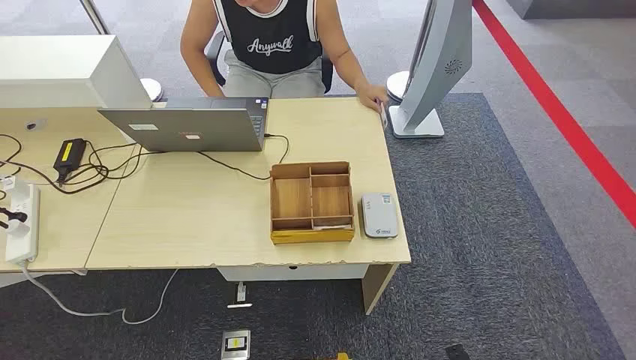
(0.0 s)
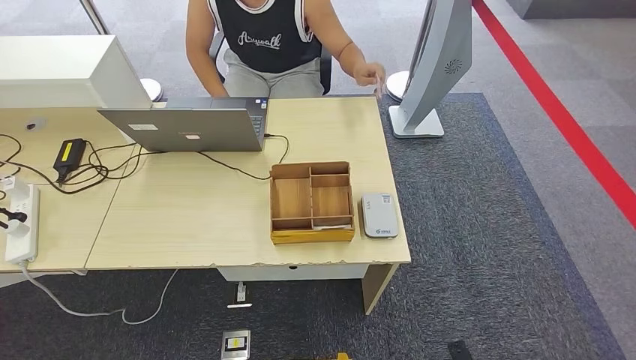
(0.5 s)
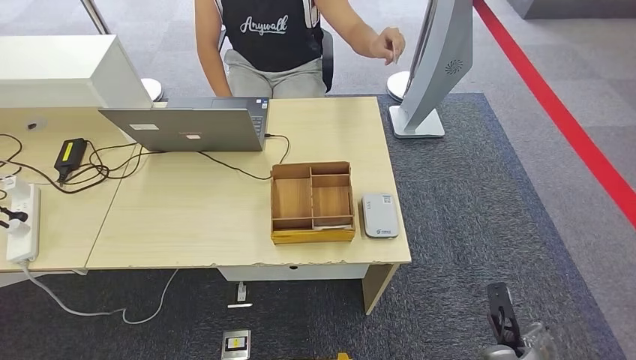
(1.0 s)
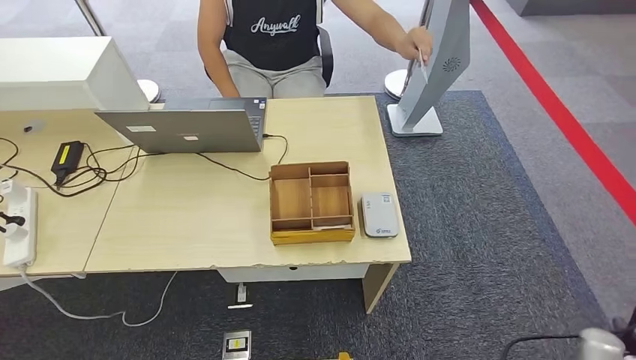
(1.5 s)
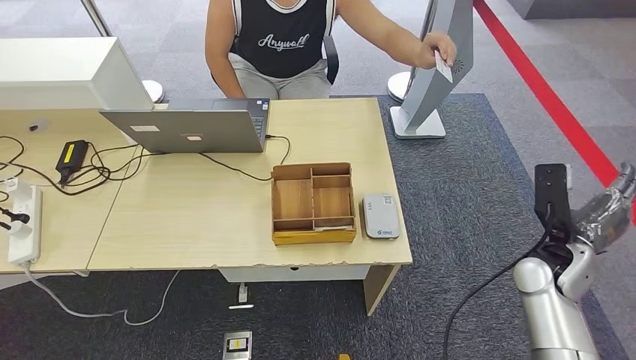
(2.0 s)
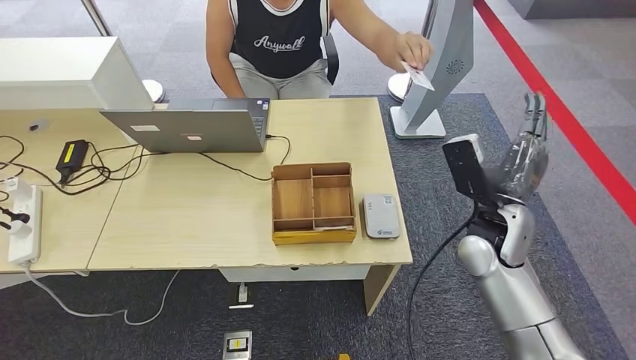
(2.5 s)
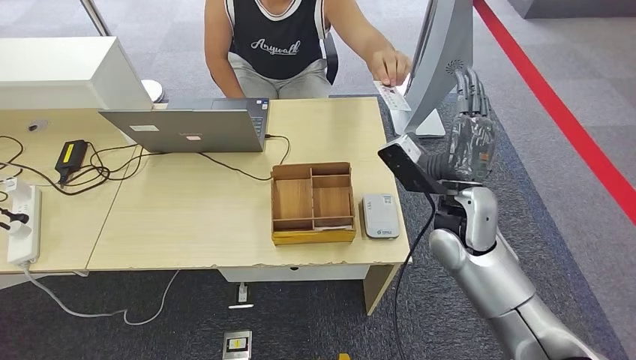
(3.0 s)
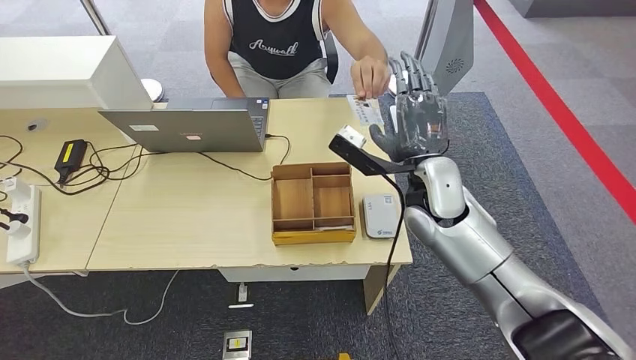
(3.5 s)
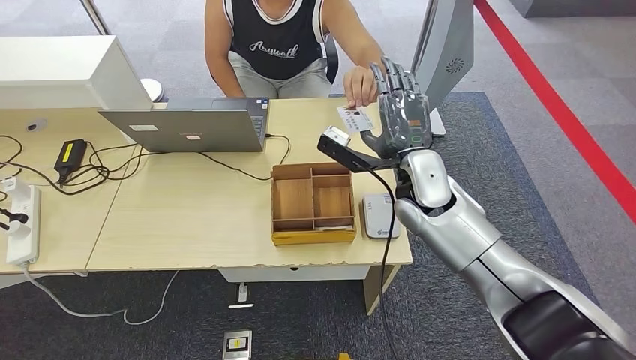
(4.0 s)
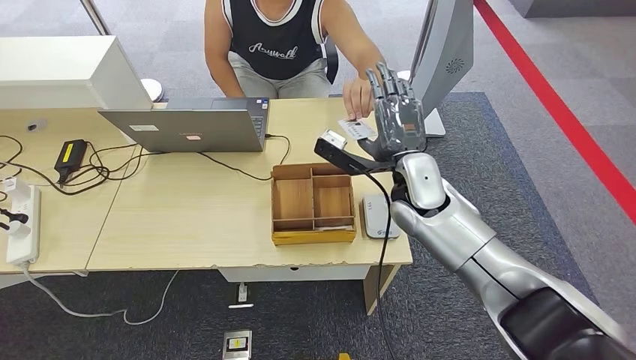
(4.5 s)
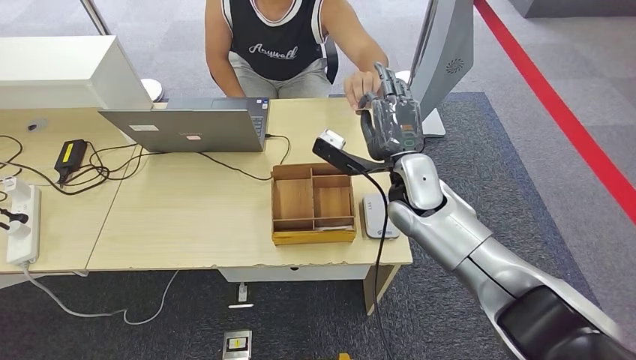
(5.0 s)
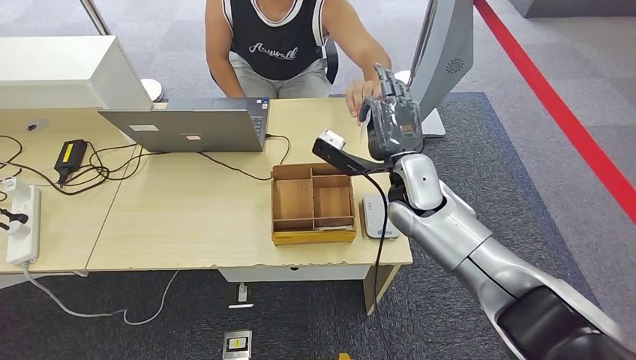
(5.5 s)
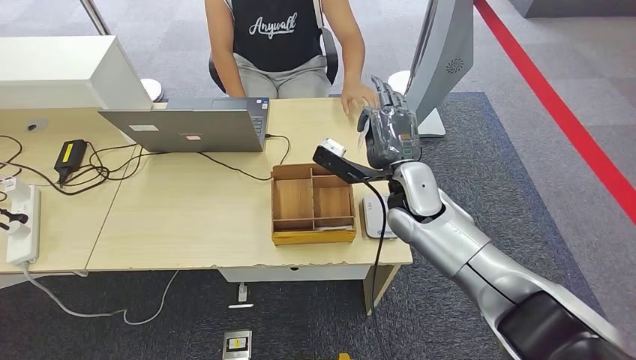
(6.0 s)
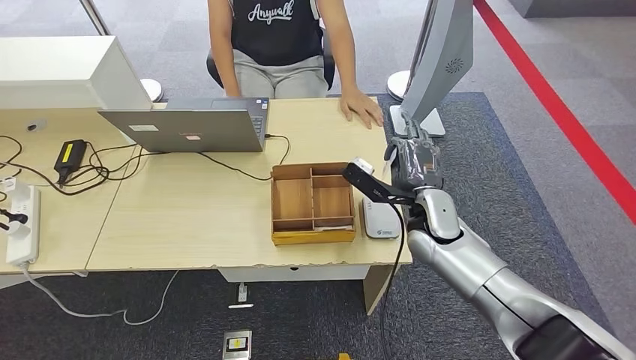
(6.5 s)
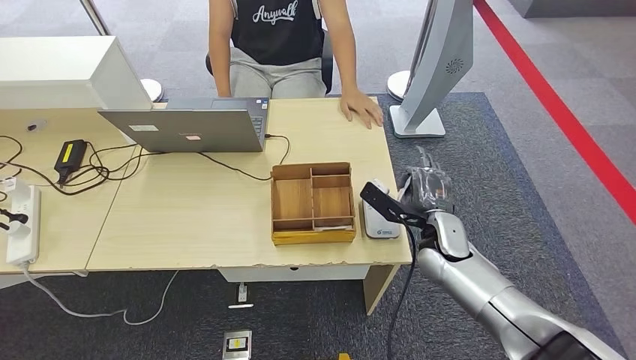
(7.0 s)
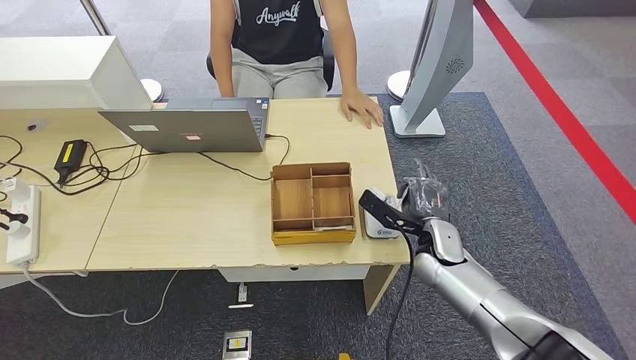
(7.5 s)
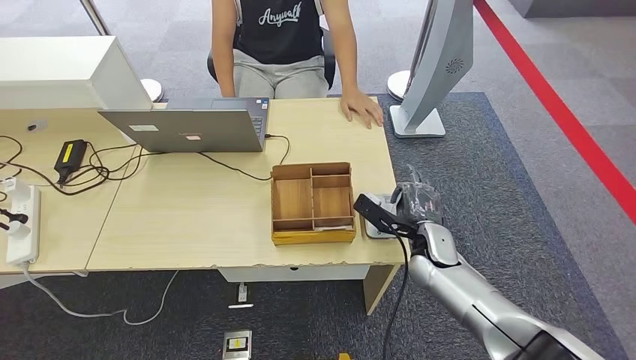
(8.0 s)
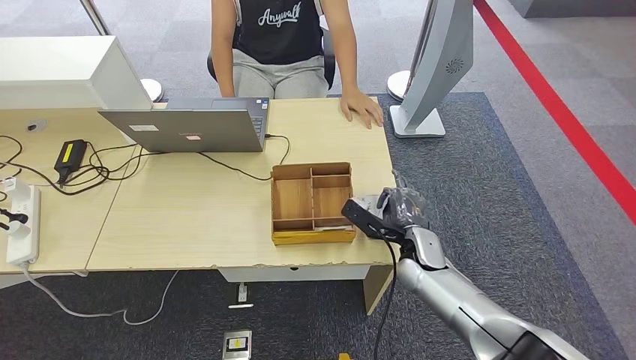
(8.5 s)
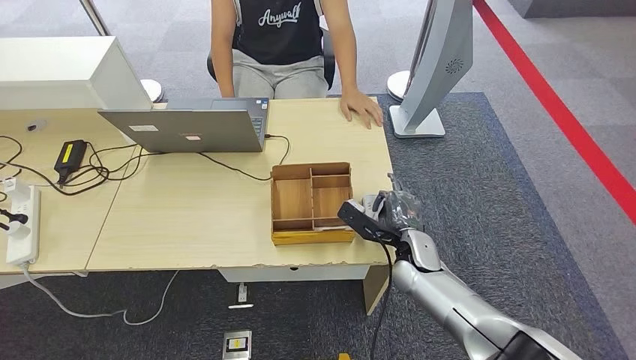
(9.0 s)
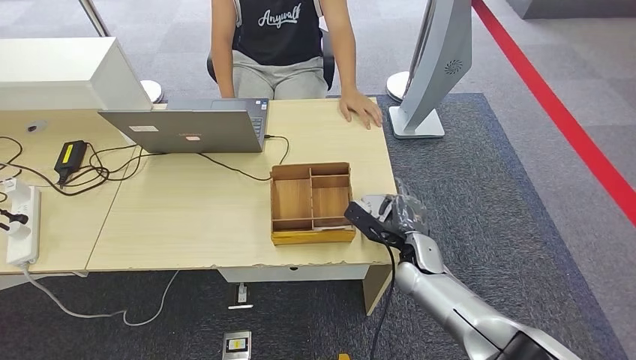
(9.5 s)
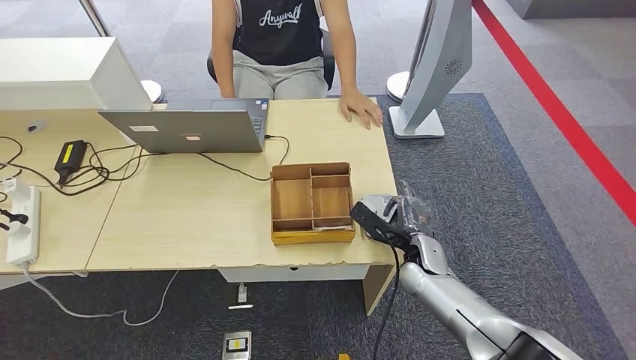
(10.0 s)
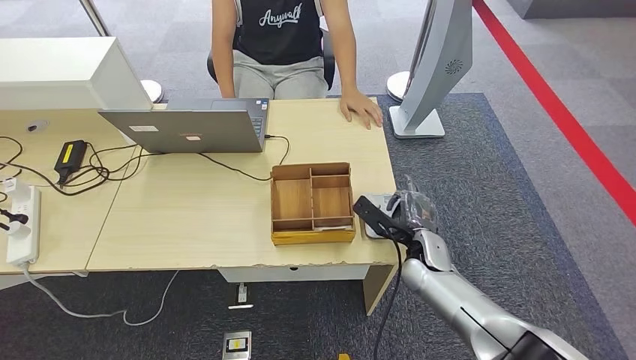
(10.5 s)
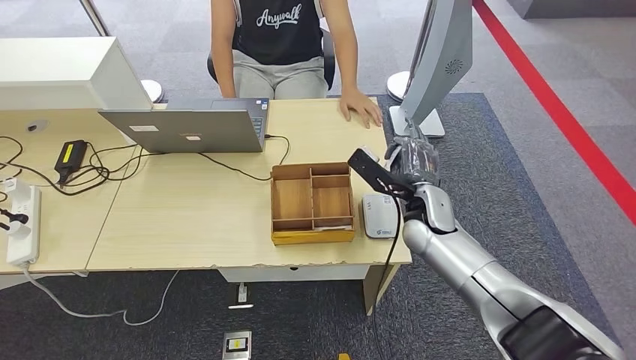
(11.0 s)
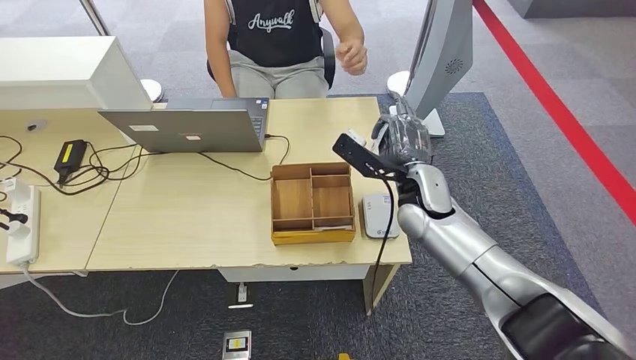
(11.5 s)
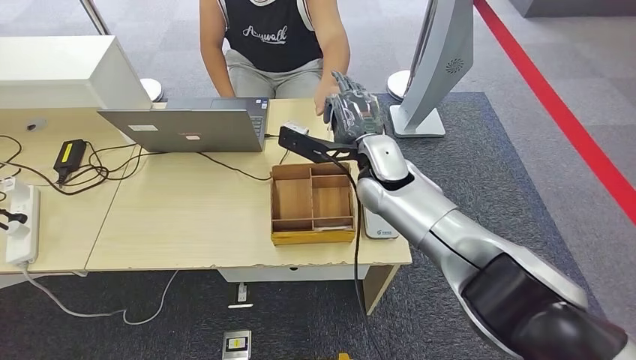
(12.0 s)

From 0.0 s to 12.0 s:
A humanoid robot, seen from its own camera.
Step, from 0.0 s to 5.0 s: Take the ID card from the person's hand.
Step, from 5.5 s to 9.5 s: Place the ID card on the card reader.
From 2.0 s to 4.0 s: The right hand travels to the left, forward and upward by about 25 cm.
From 4.0 s to 6.0 s: The hands move only a little.
From 6.0 s to 8.0 s: The right hand moves downward and to the right, approximately 15 cm.
From 8.0 s to 10.0 s: The hands stay close to where they were, moving slightly.
From 10.0 s to 12.0 s: The right hand moves upward, to the left and forward, roughly 25 cm.

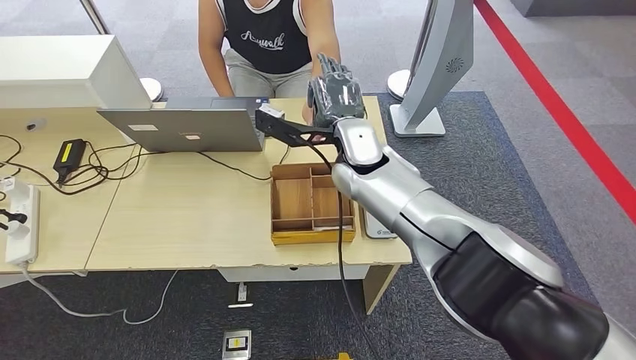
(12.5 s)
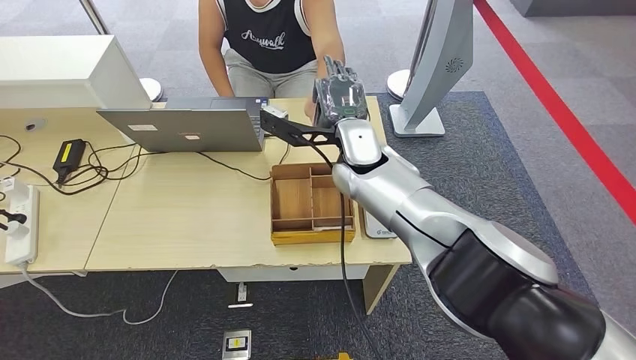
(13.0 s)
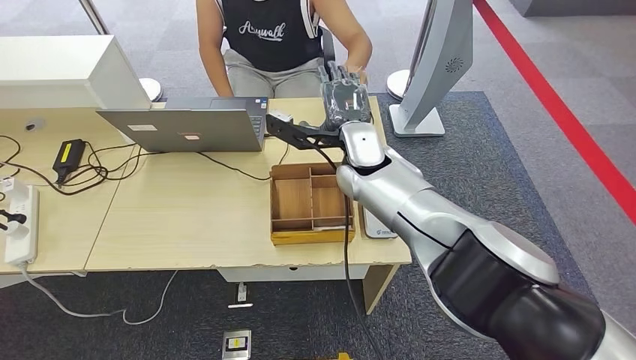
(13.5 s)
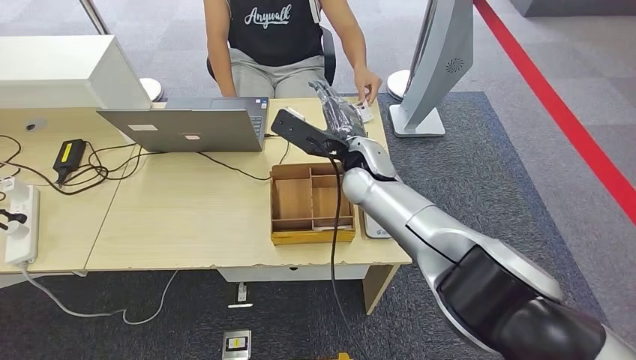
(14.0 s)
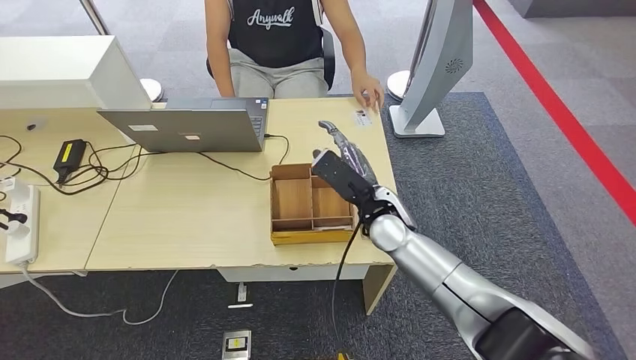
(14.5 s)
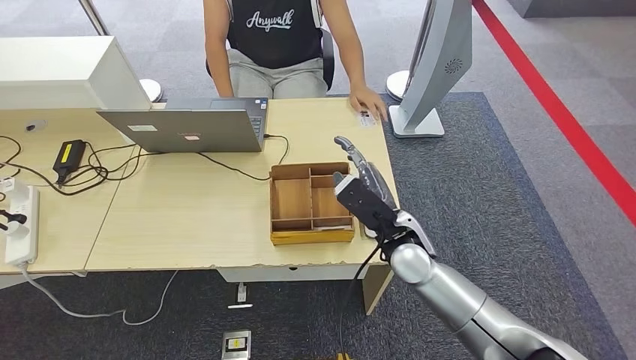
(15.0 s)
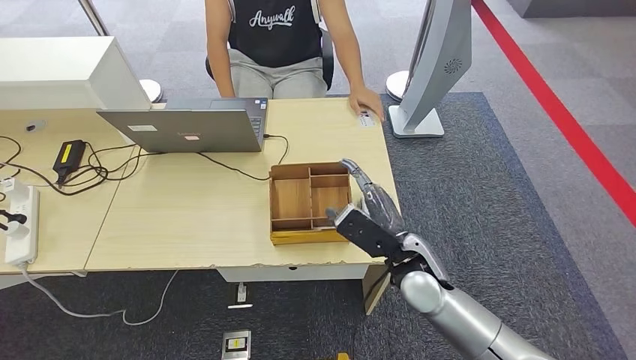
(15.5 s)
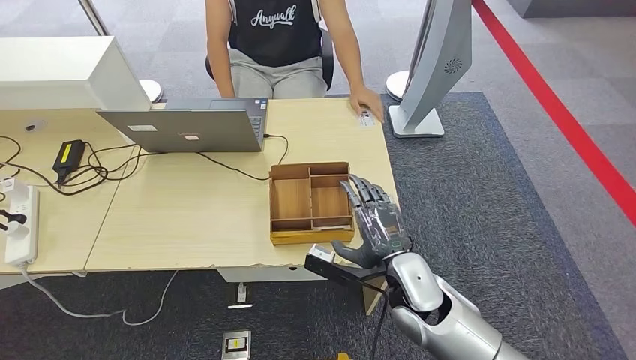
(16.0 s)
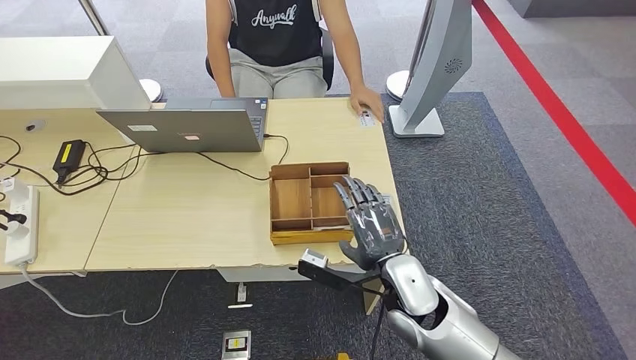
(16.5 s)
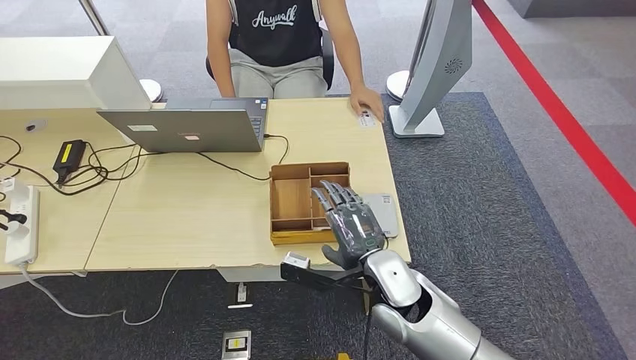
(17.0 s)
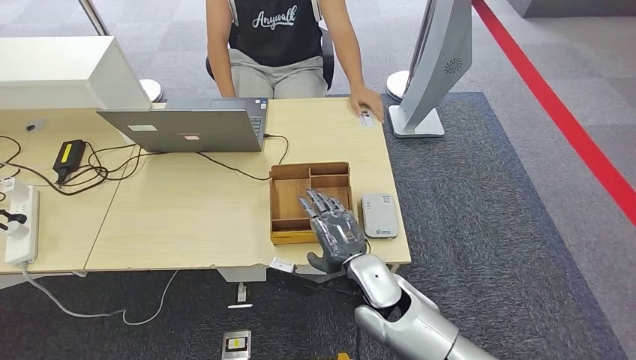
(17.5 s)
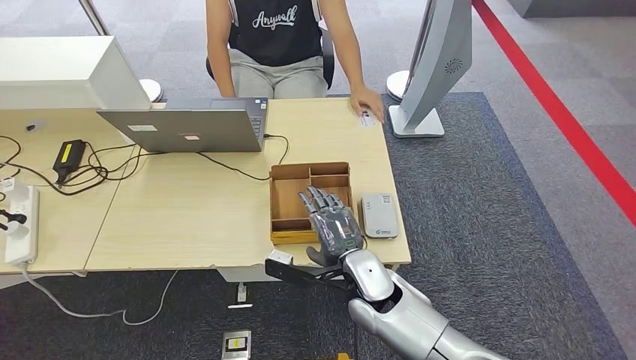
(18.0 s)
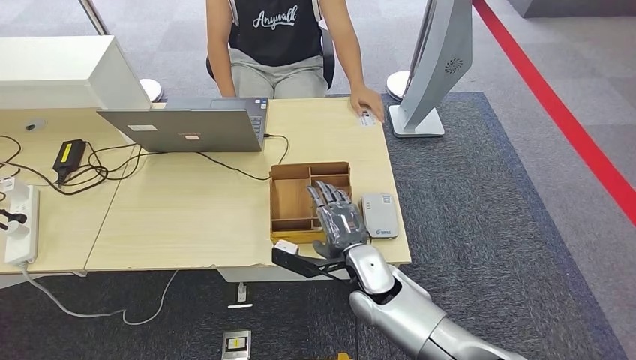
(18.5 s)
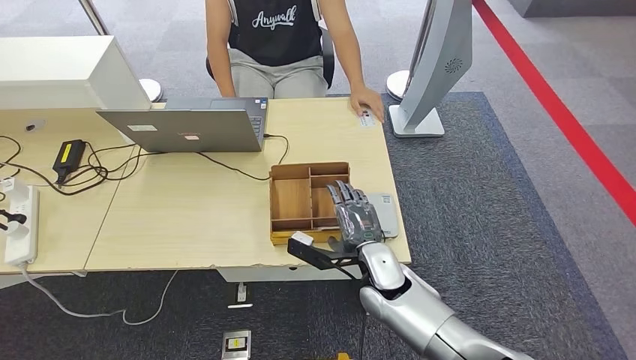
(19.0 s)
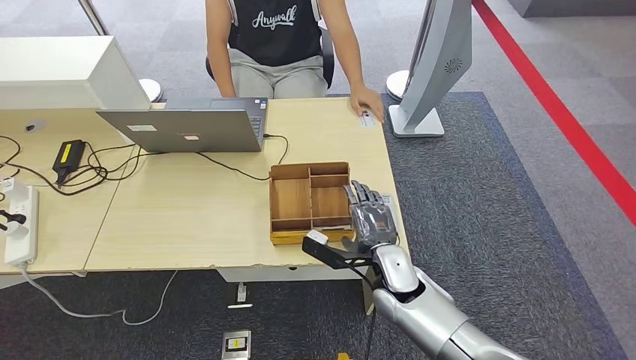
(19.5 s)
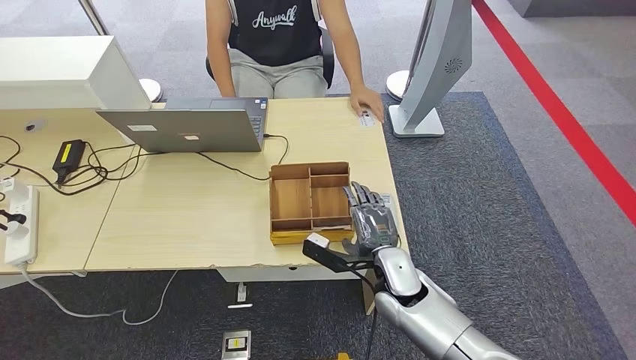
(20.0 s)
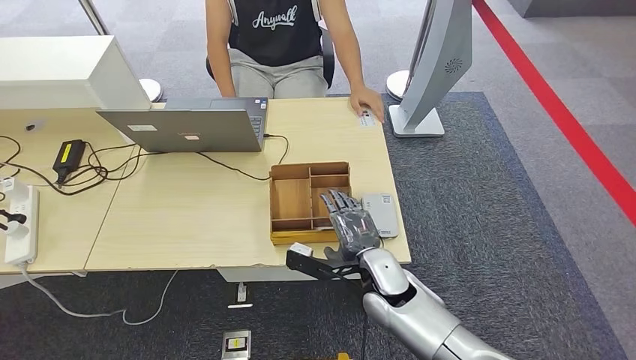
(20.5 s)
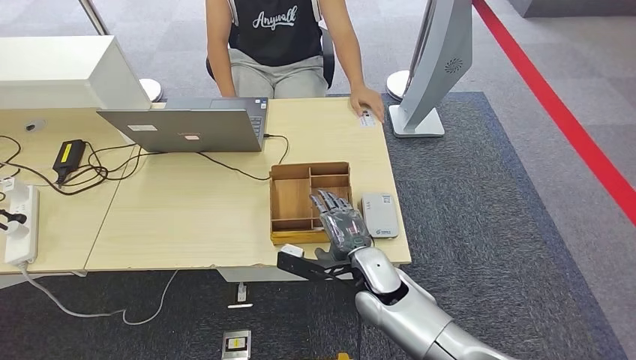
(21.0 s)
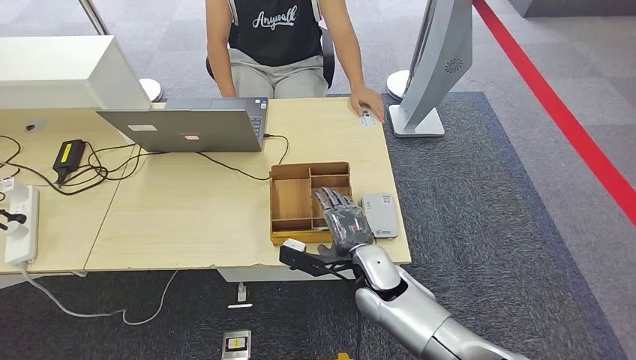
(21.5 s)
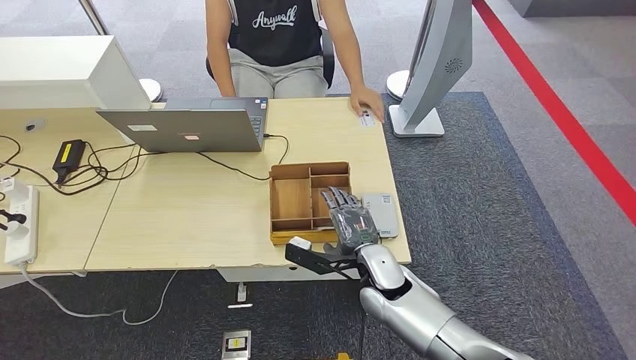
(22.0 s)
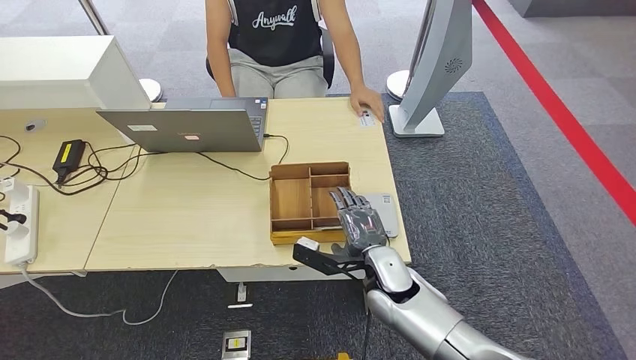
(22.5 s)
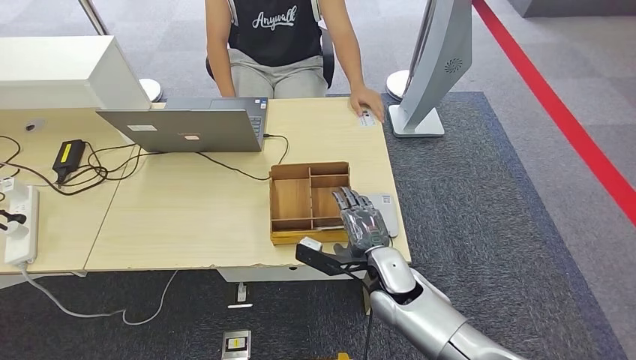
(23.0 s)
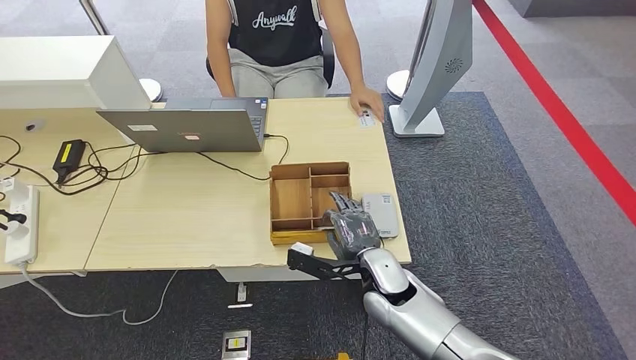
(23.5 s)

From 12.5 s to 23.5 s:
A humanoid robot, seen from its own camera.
From 12.5 s to 14.5 s: The right hand moves downward, backward and to the right, about 15 cm.
From 14.5 s to 16.0 s: The right hand travels backward by some 10 cm.
From 16.0 s to 18.0 s: The right hand moves to the left, about 5 cm.
From 18.0 s to 20.0 s: The right hand moves to the right, approximately 5 cm.
From 20.0 s to 23.5 s: The hands stay close to where they were, moving slightly.
